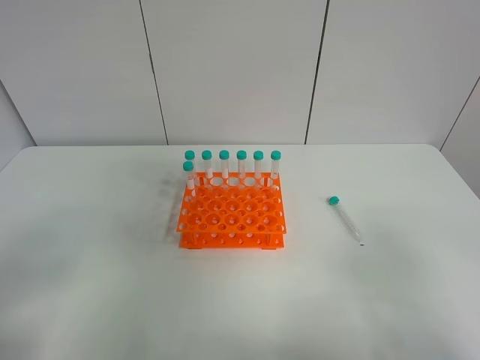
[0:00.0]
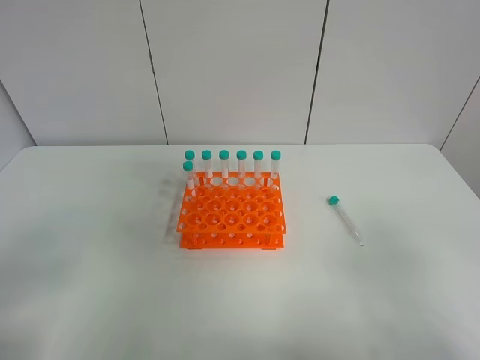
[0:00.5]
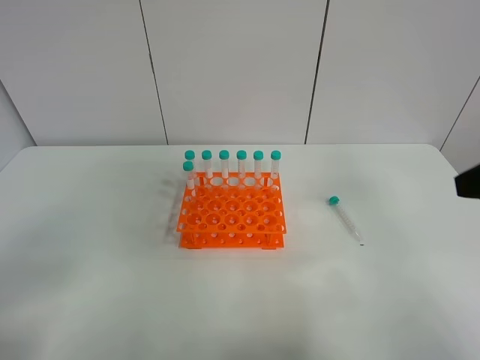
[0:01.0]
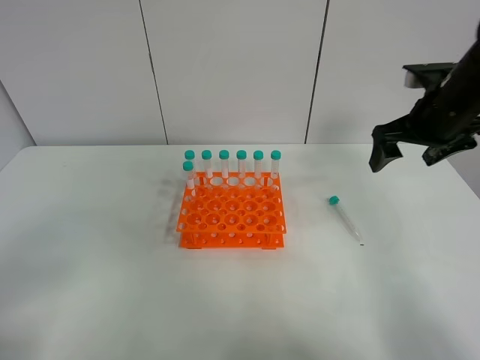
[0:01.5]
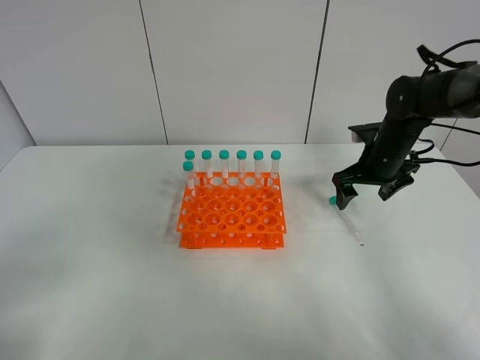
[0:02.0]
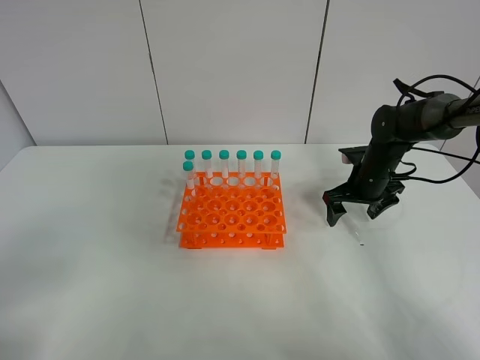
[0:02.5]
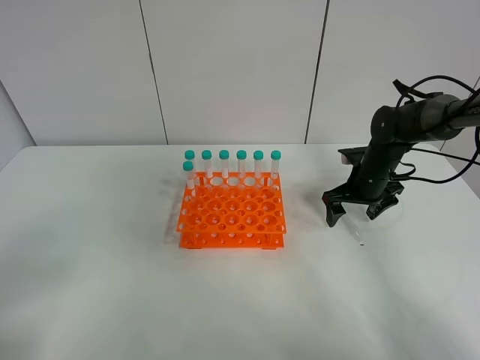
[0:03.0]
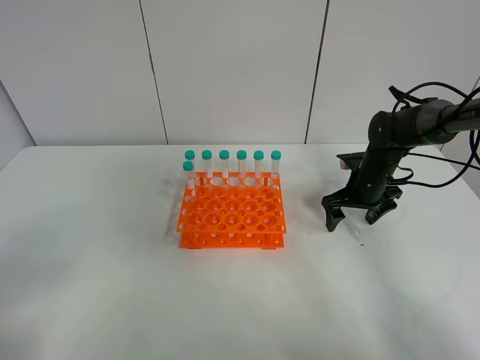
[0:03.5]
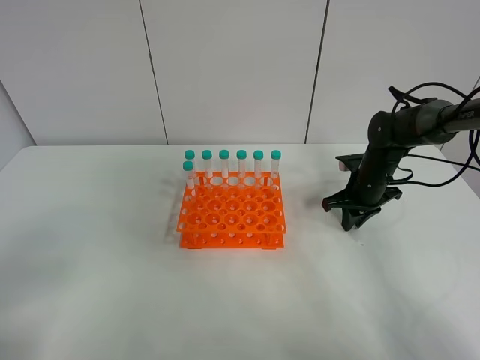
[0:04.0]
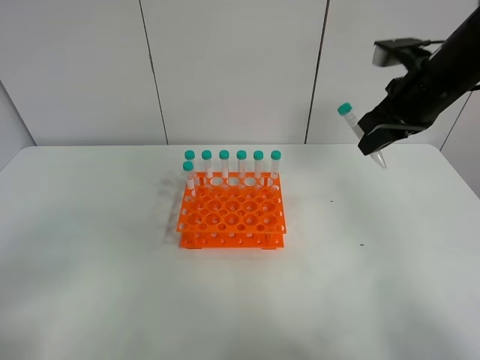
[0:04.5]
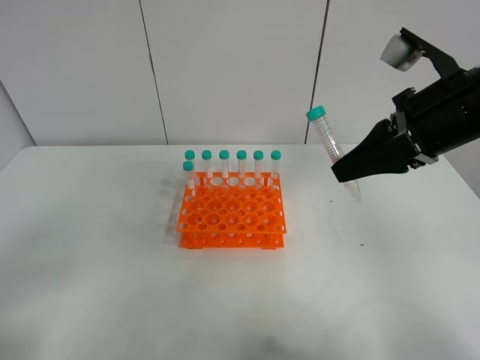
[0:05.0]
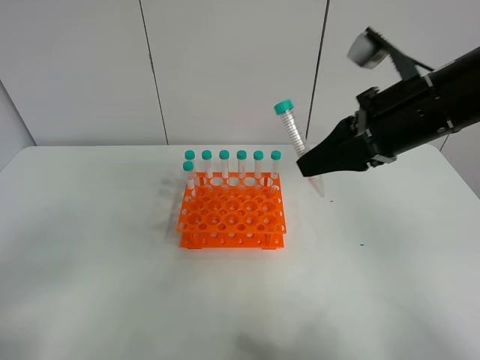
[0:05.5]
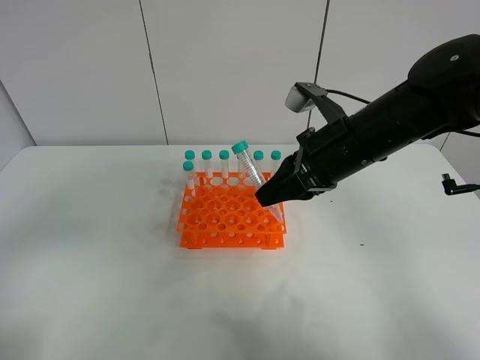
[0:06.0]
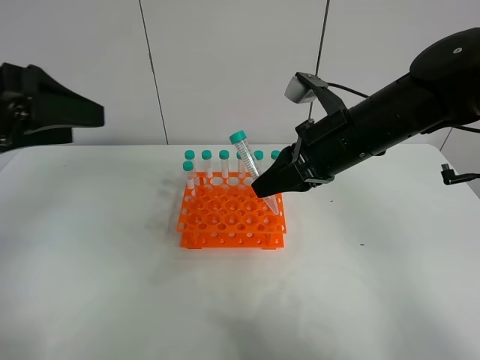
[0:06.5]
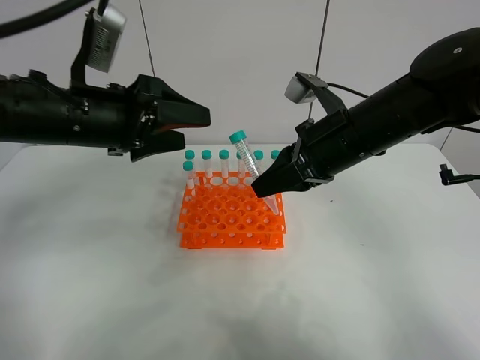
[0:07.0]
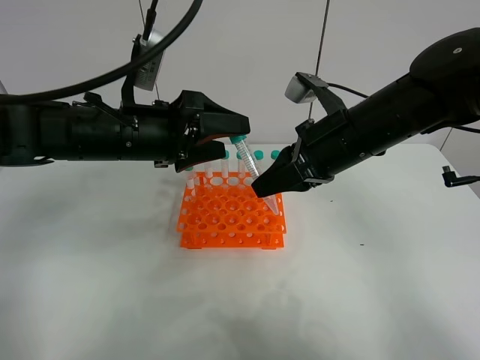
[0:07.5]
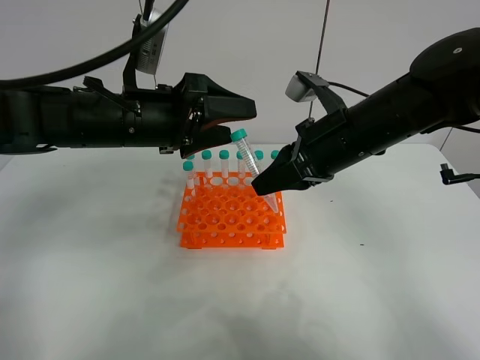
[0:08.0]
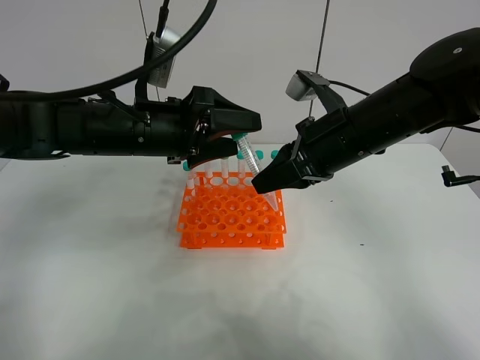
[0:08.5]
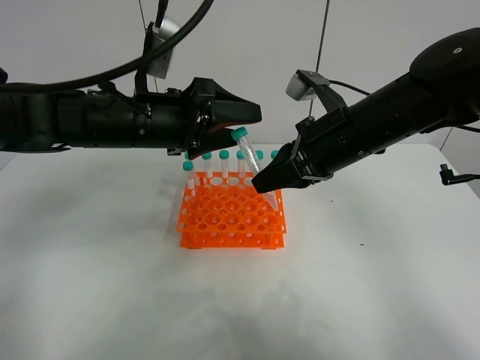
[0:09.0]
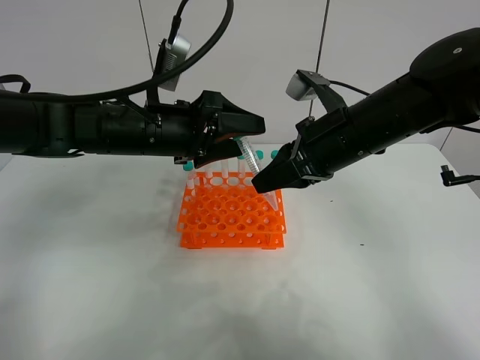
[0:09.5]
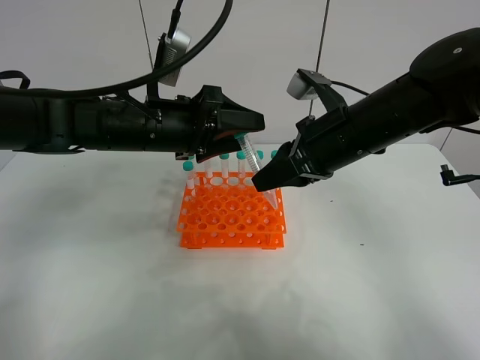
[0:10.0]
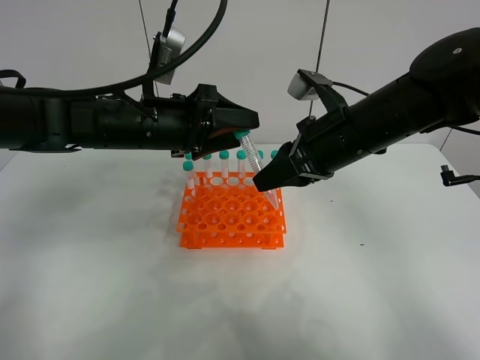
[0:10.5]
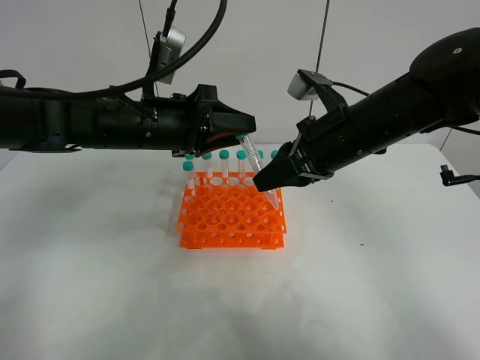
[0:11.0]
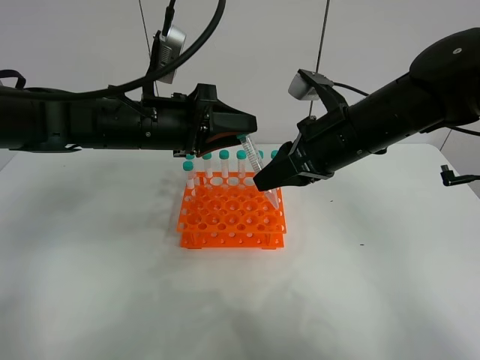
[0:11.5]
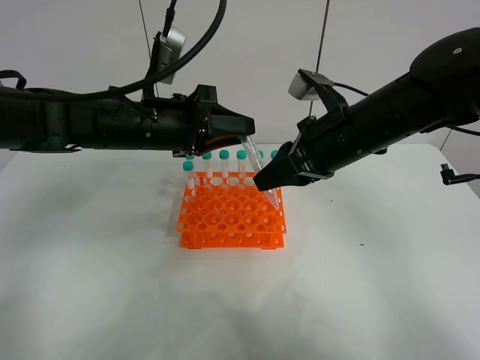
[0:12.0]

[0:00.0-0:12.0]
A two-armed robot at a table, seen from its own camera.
Task of the whole recording: Put the test tube on the table back onto the test tube rack.
Step, 0:00.0 to 0:04.0: Pick up the test tube with the right gripper.
0:00.0 to 0:02.0: The right gripper goes some 40 cm forward.
0:02.0 to 0:04.0: The right gripper is displaced downward by some 5 cm, and closes.
0:04.0 to 0:06.0: The left gripper is displaced upward by about 5 cm. Meanwhile the right gripper goes some 25 cm upward, backward and to the left.
0:06.0 to 0:08.0: The left gripper travels forward and to the right by approximately 30 cm.
0:08.0 to 0:10.0: The grippers move only a little.
0:10.0 to 0:12.0: The left gripper closes its fingers.

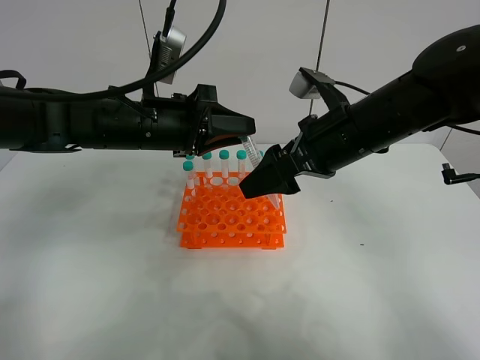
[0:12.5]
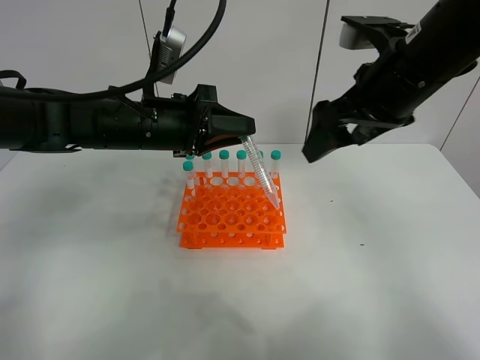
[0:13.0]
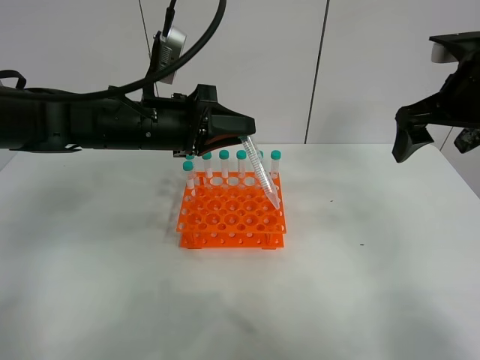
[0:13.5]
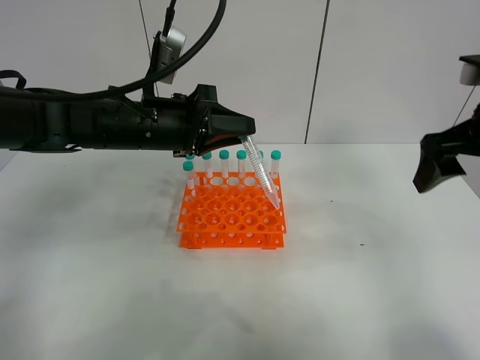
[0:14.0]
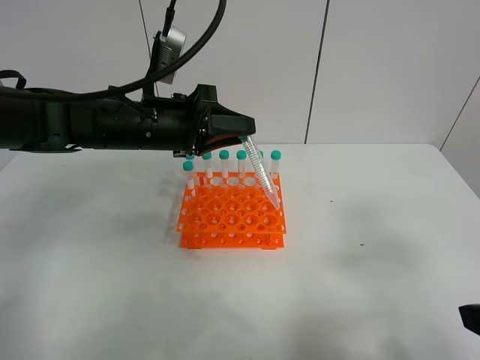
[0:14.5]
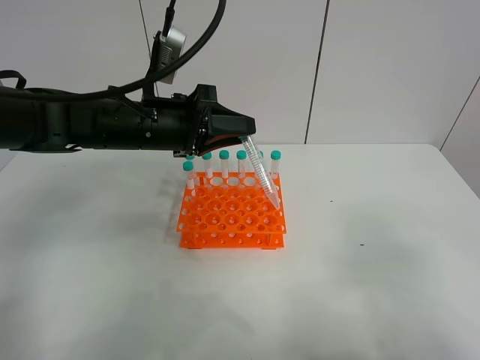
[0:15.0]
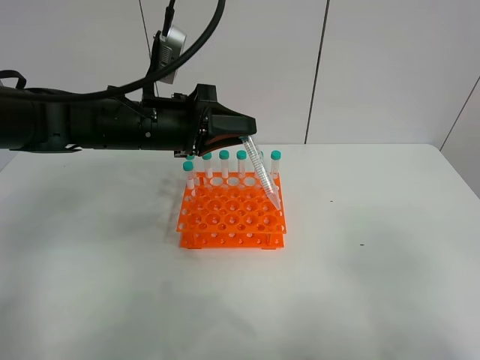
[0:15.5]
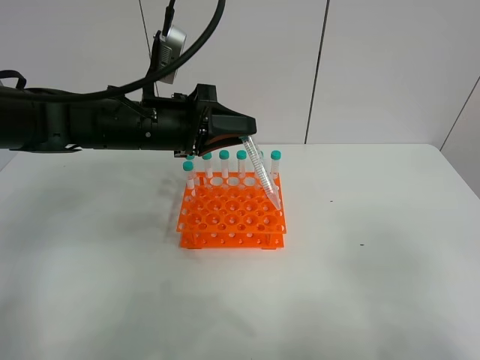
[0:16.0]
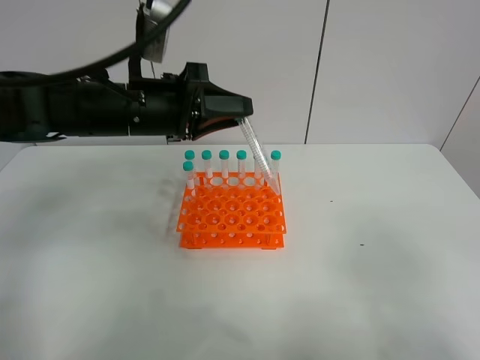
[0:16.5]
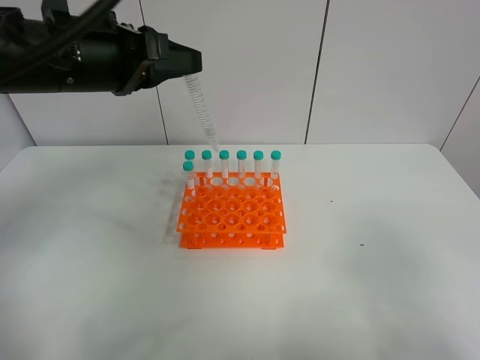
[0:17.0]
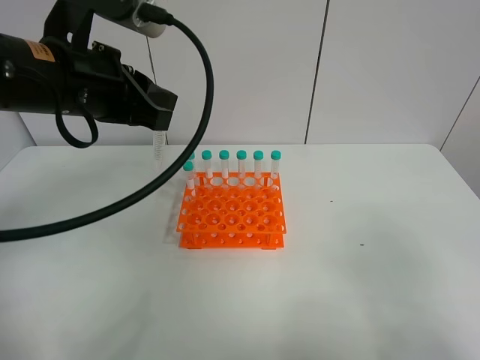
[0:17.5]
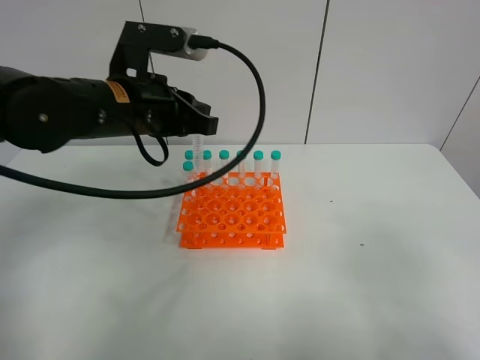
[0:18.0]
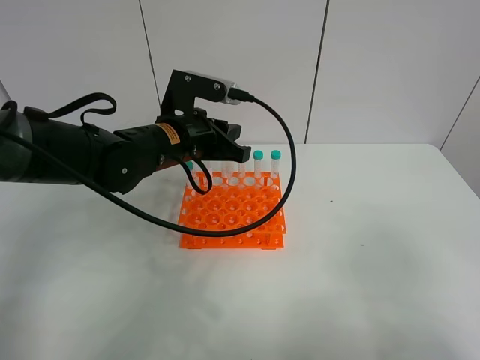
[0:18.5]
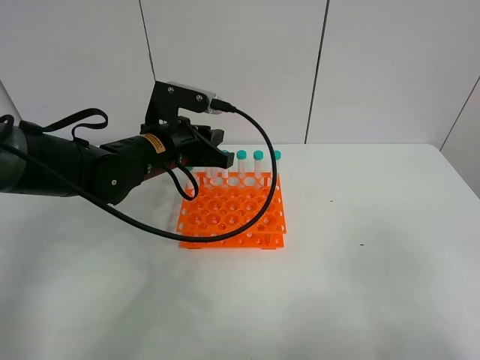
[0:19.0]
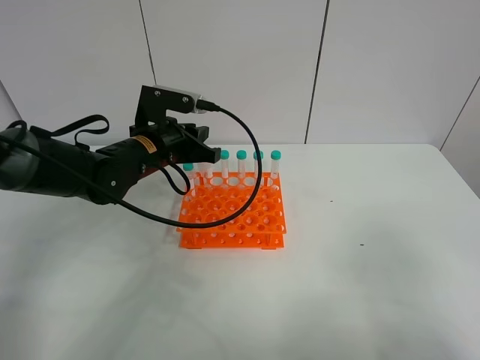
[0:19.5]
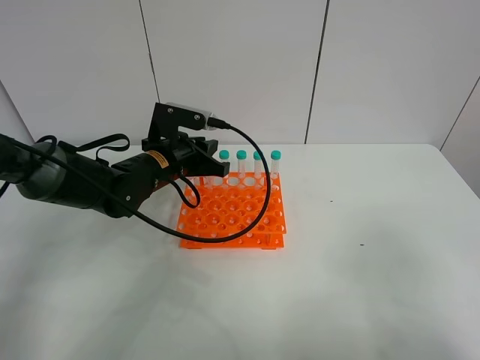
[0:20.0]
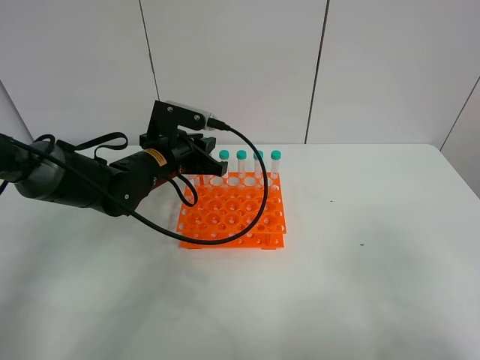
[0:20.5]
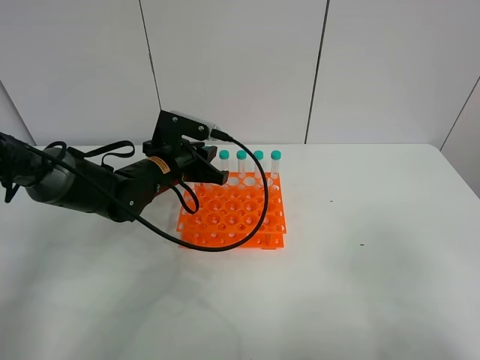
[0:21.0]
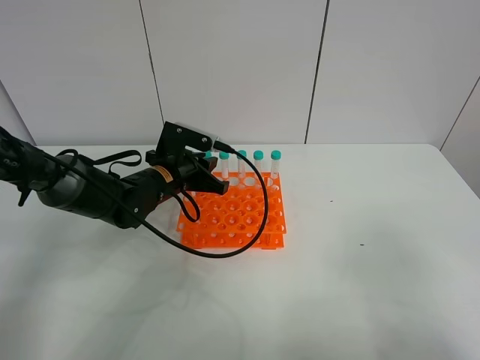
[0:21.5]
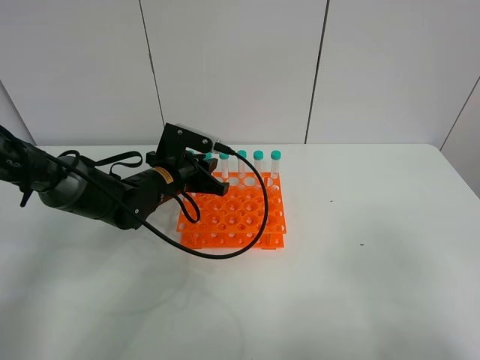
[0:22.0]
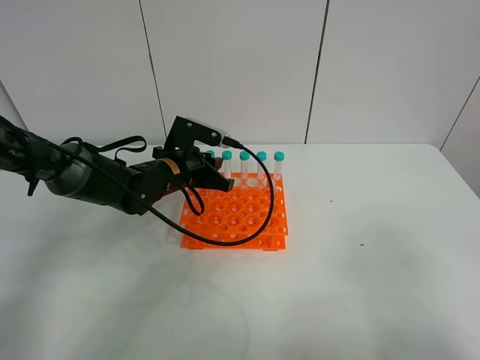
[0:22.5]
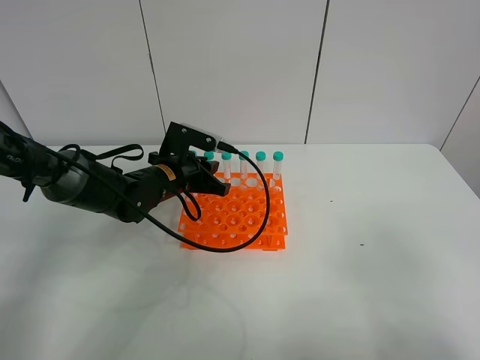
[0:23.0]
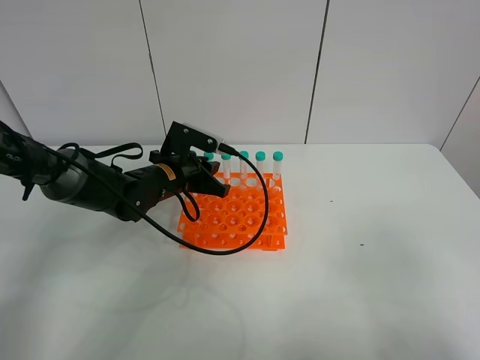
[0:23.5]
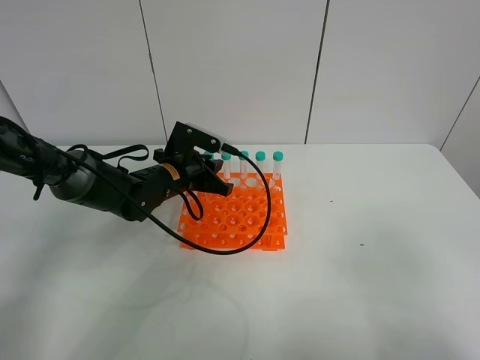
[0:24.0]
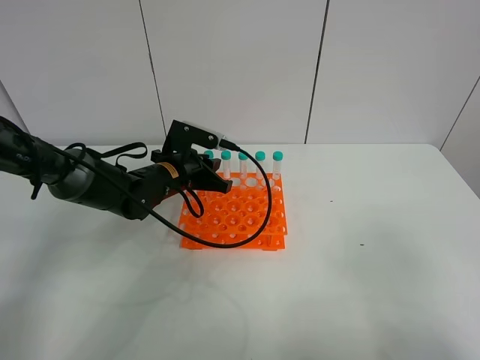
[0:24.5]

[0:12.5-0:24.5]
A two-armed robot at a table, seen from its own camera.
Task of the whole recording: Put the test tube on the table back onto the test tube rack.
0:12.5 to 0:14.5: The right gripper is displaced backward and to the right by about 25 cm.
0:14.5 to 0:16.5: The right gripper travels backward by some 5 cm.
0:16.5 to 0:18.5: The left gripper moves downward, roughly 5 cm.
0:18.5 to 0:20.5: The left gripper is displaced downward by roughly 5 cm.
0:20.5 to 0:22.5: The grippers move only a little.
0:22.5 to 0:24.5: Both grippers stay put.

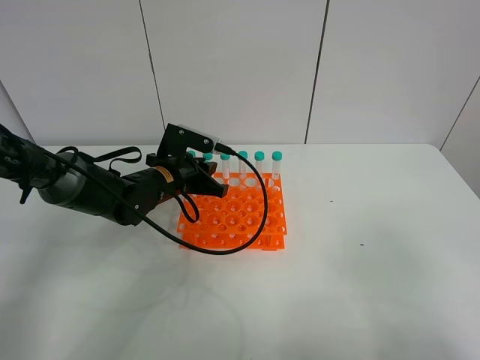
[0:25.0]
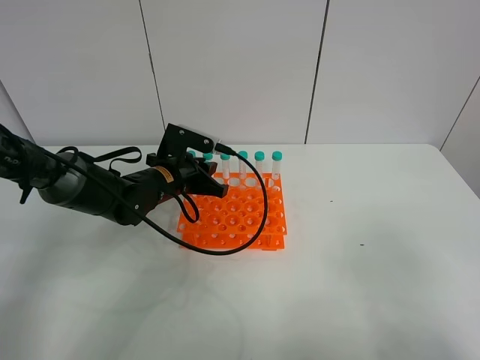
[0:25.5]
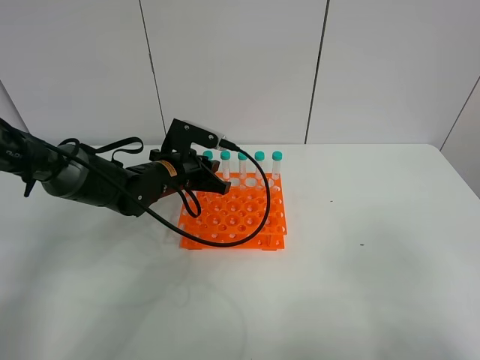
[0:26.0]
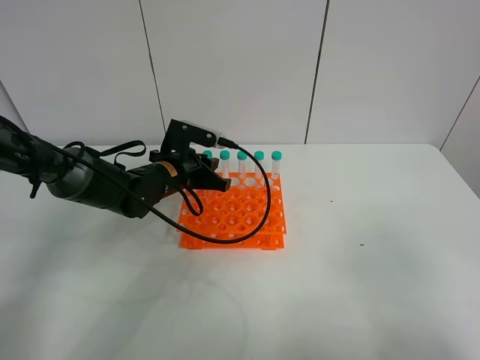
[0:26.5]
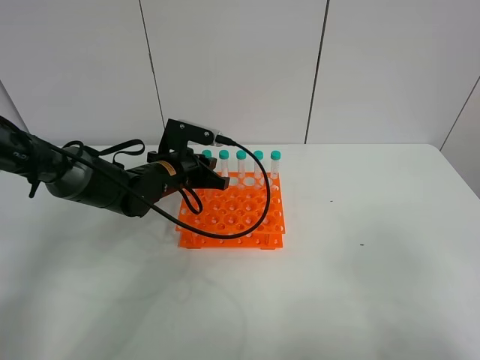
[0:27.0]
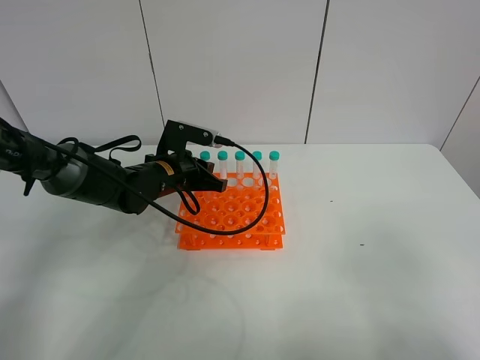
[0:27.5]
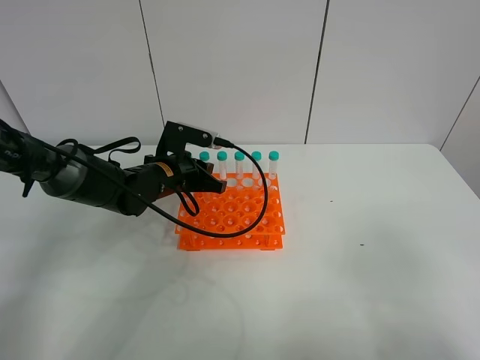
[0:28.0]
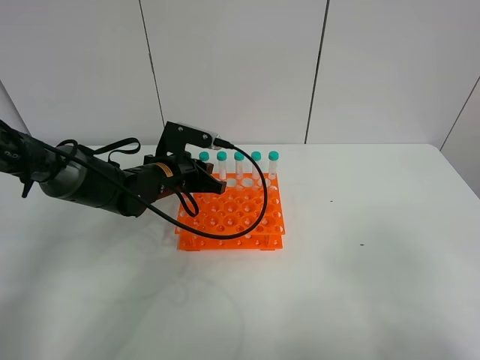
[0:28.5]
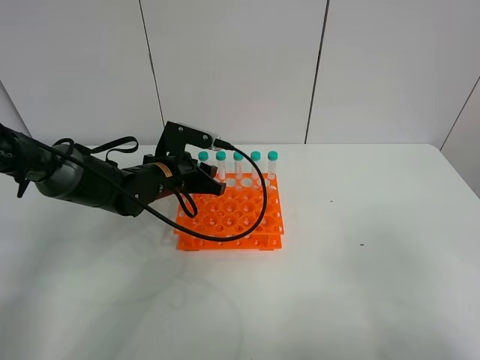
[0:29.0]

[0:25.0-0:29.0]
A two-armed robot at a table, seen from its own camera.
Task of the whole recording: Put the test tube on the table back onto the test tube rack.
0:25.0 to 0:27.0: The two grippers keep their place.
0:27.0 to 0:29.0: The left gripper opens up.
